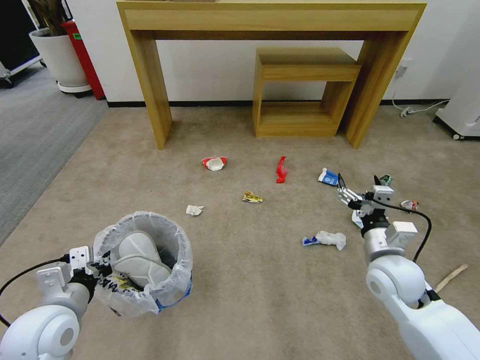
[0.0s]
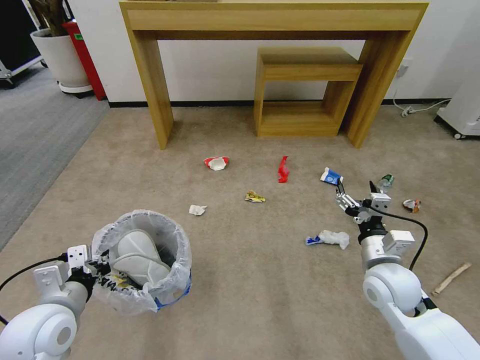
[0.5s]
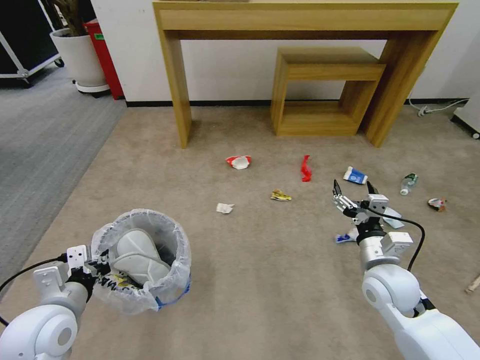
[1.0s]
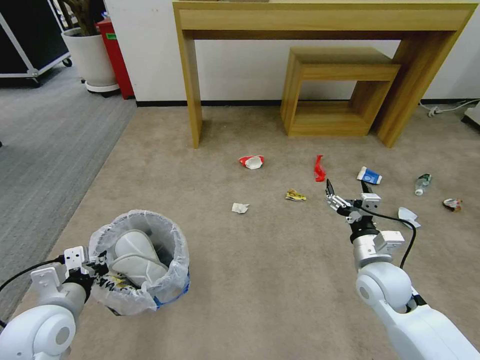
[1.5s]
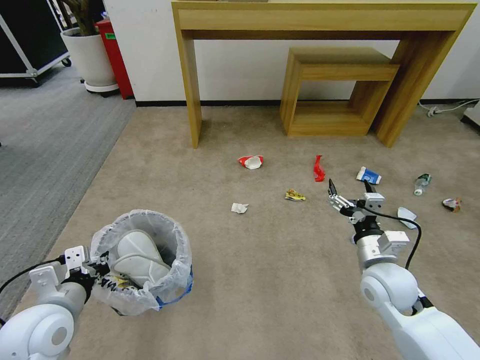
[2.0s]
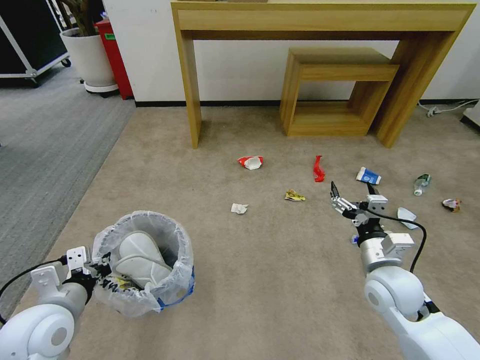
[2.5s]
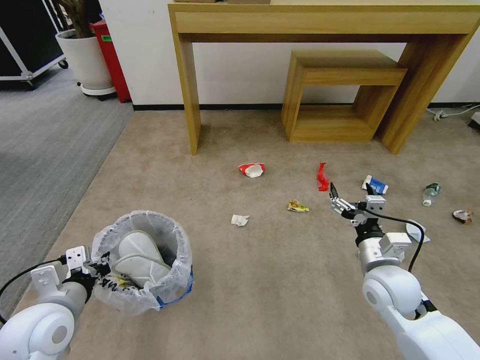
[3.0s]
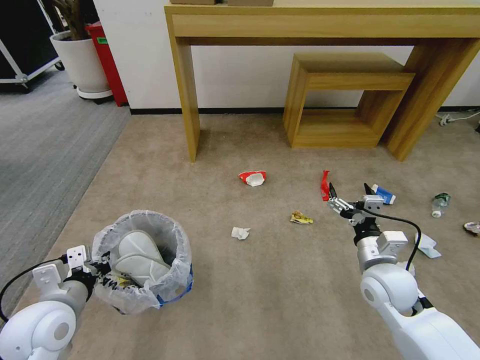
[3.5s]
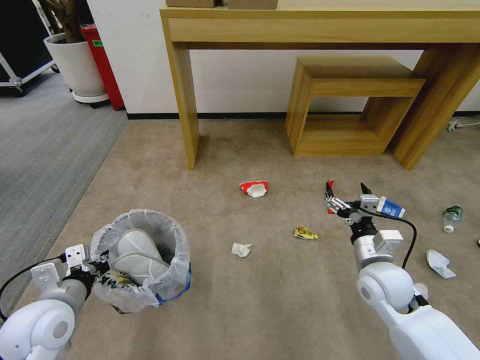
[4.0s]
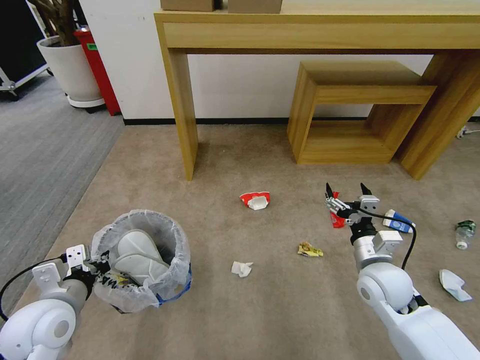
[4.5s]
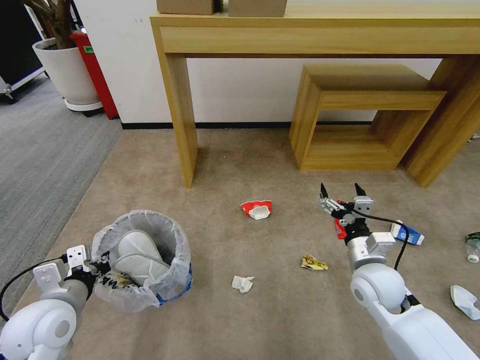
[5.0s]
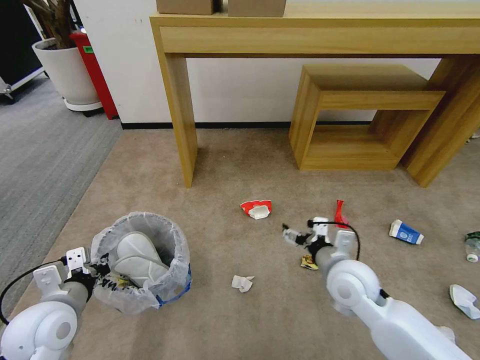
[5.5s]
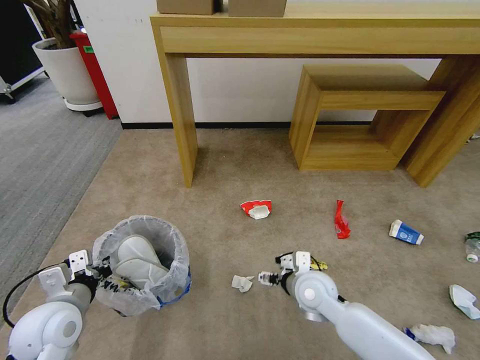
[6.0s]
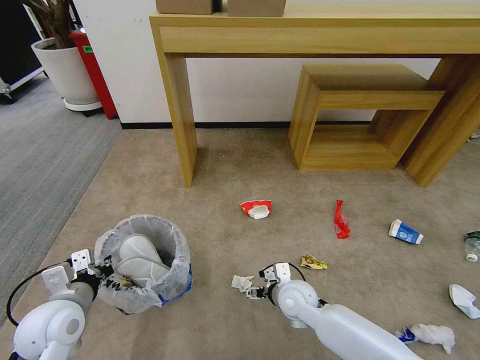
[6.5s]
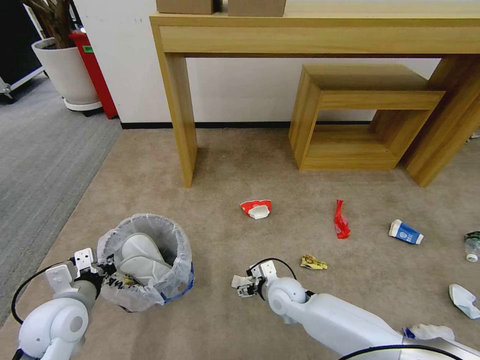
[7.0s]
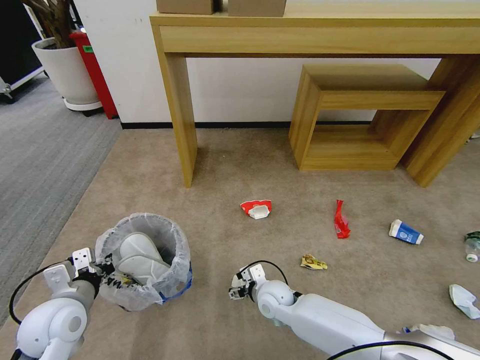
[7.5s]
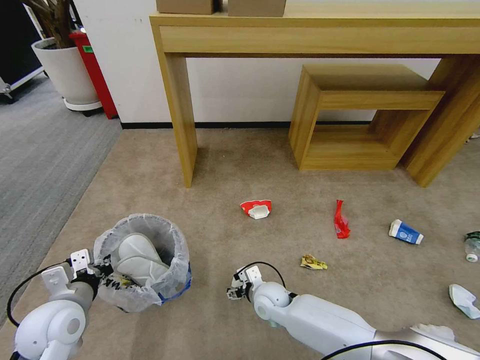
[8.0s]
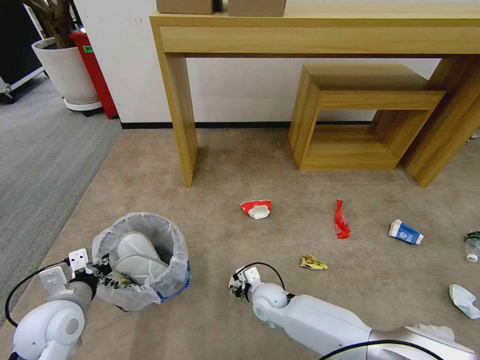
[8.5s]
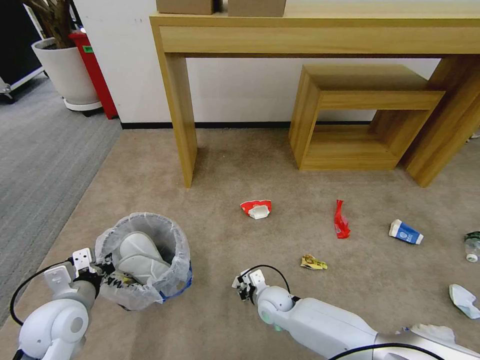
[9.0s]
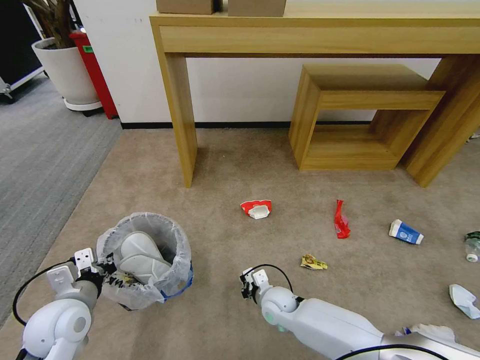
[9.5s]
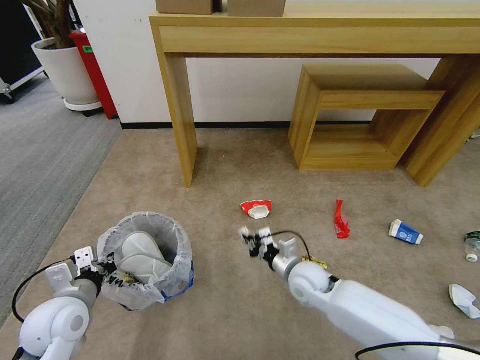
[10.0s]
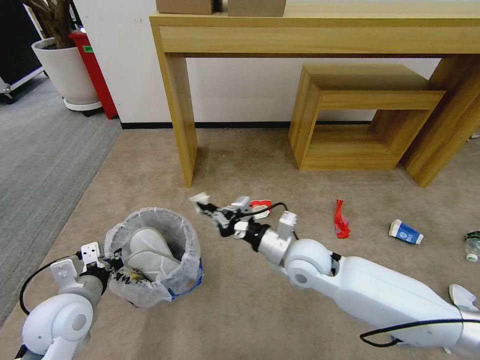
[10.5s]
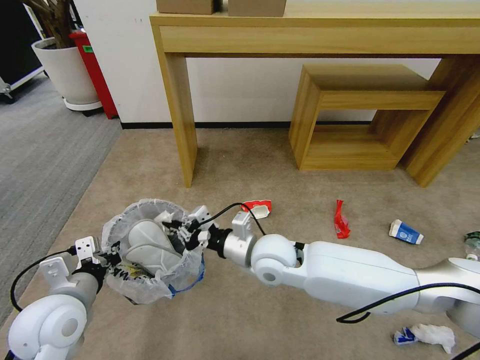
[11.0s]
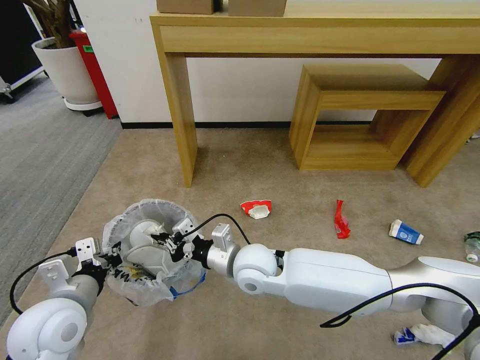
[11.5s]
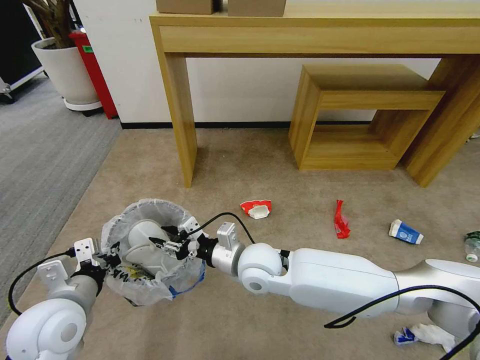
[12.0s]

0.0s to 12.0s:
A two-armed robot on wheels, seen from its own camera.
Task of the whole recording: Pick up the trash bin and place the garbage on the floor into it.
4.0s to 6.0s: The right gripper moves to the left, approximately 10 cm.
6.0s to 8.0s: The right gripper travels downward and to the left by about 20 cm.
8.0s to 10.0s: The right gripper travels upward and to the right by some 10 cm, and closes its fingers.
10.0s to 12.0s: The right gripper heads to the left and upward, covering approximately 20 cm, and opens up; the left gripper moves roughly 5 cm.

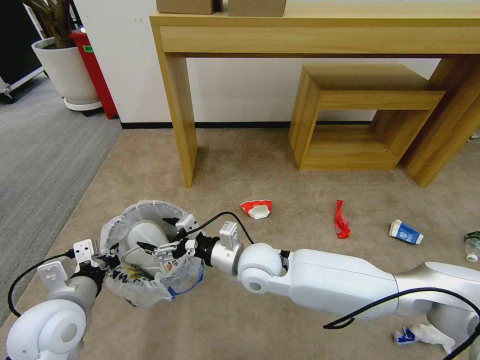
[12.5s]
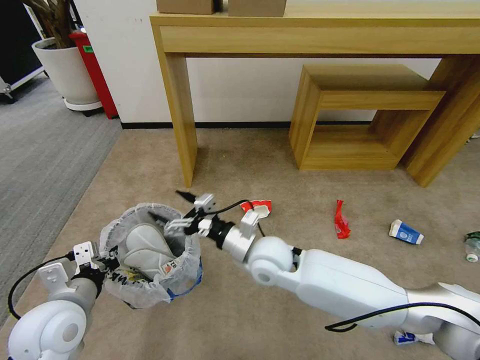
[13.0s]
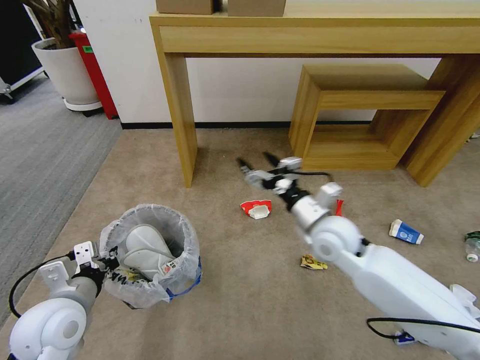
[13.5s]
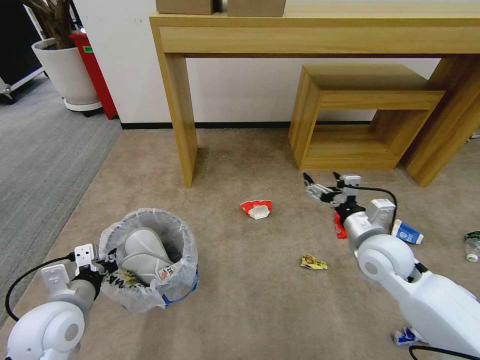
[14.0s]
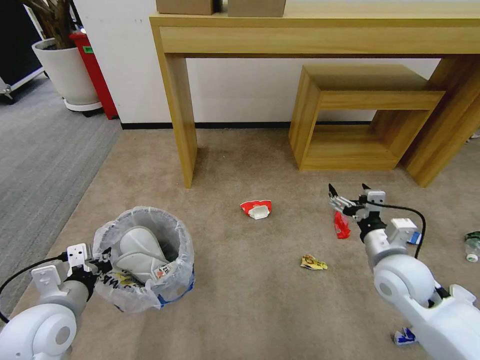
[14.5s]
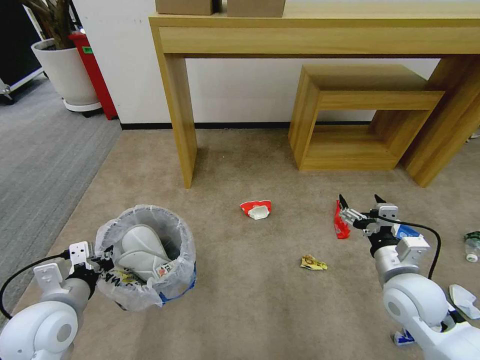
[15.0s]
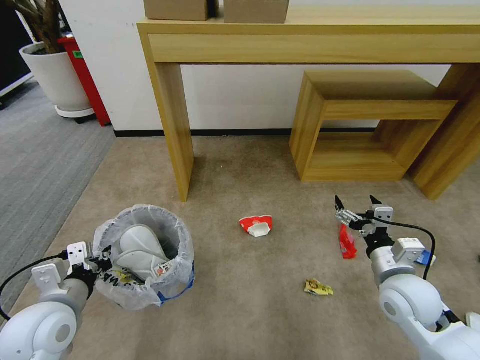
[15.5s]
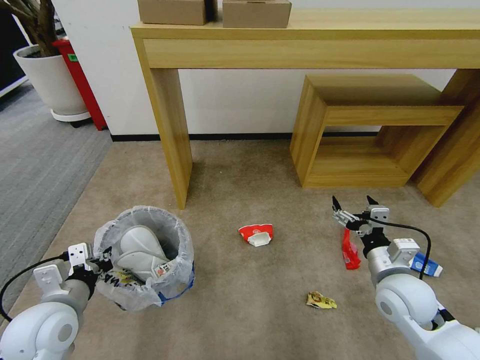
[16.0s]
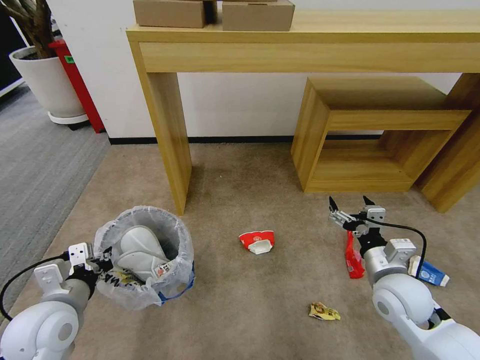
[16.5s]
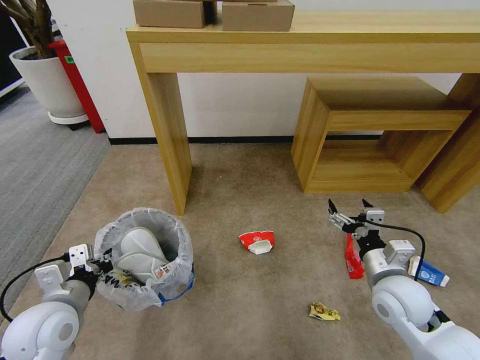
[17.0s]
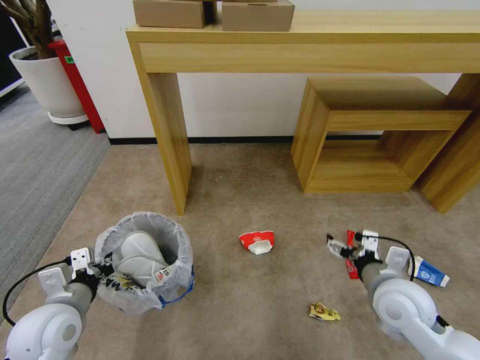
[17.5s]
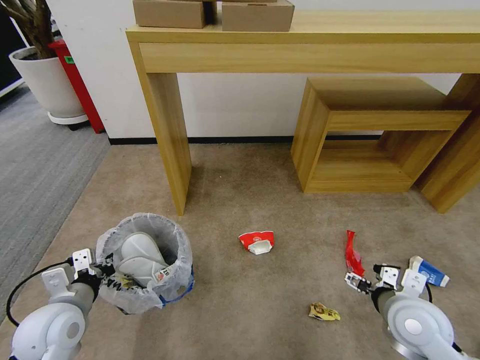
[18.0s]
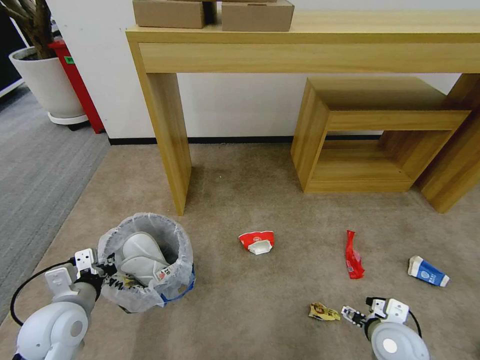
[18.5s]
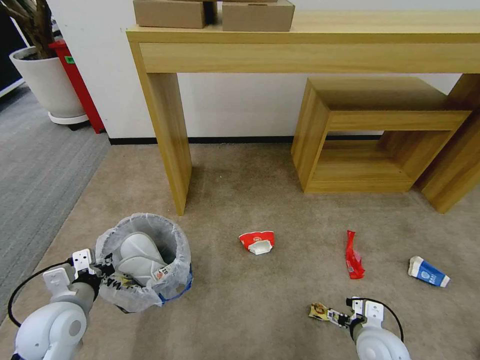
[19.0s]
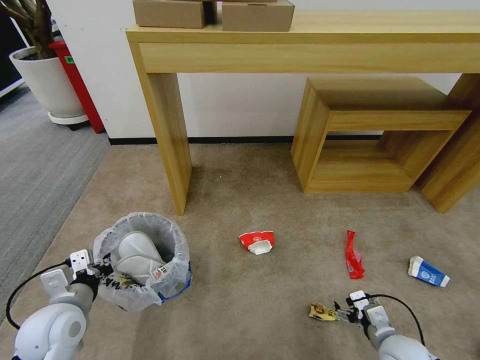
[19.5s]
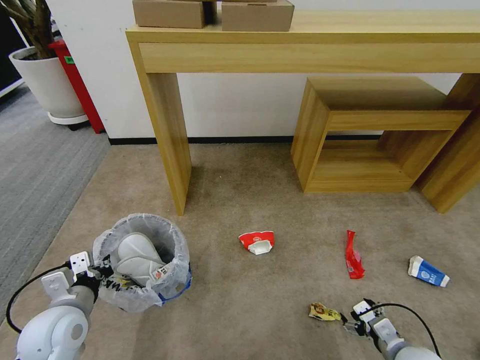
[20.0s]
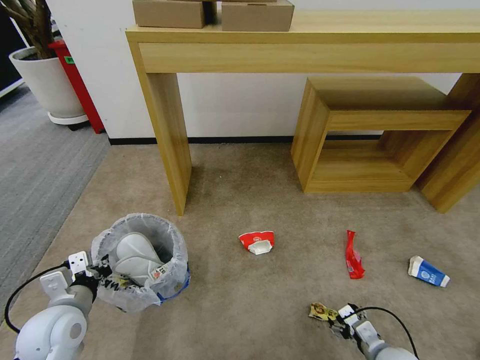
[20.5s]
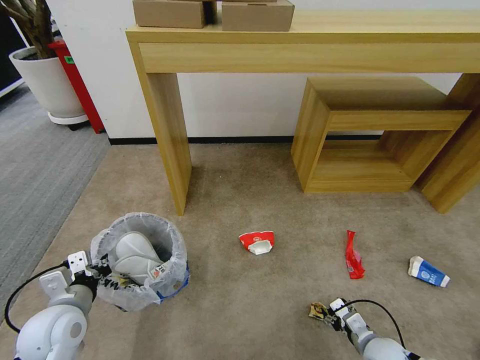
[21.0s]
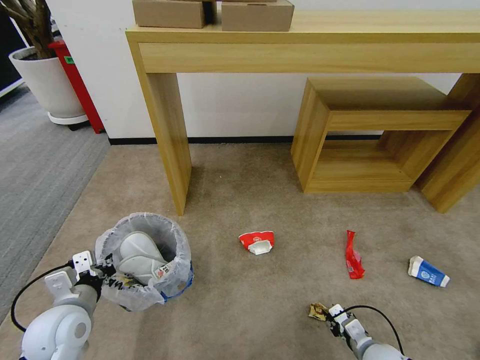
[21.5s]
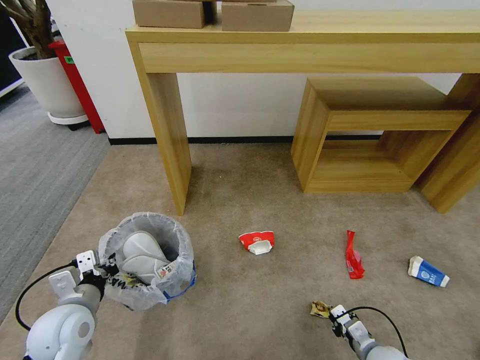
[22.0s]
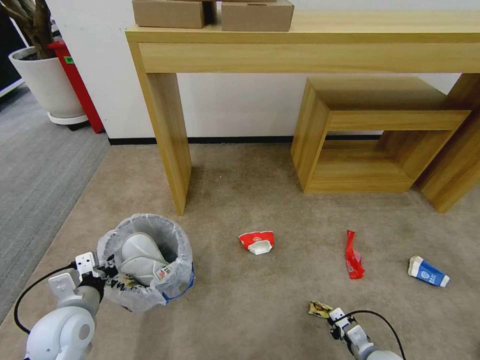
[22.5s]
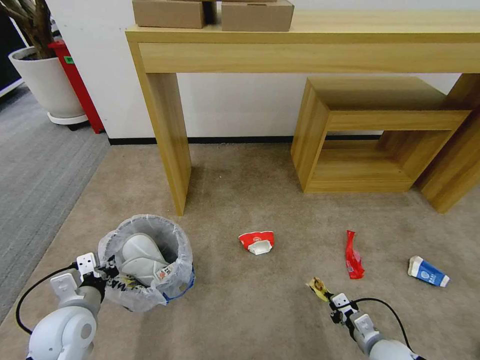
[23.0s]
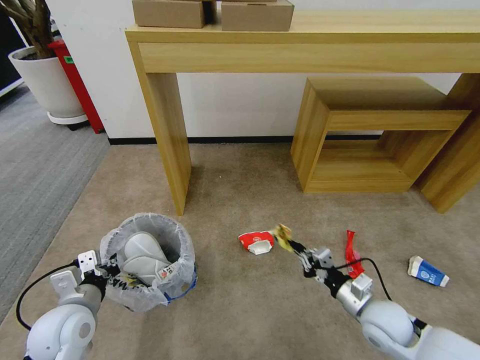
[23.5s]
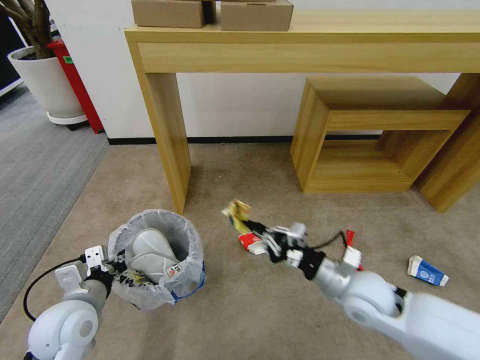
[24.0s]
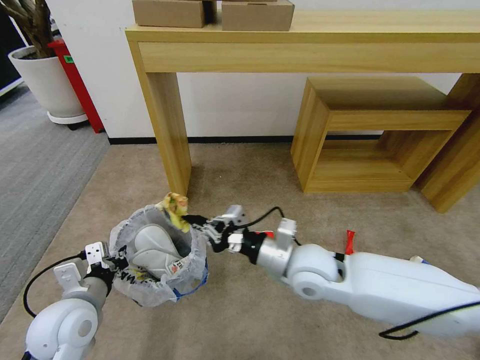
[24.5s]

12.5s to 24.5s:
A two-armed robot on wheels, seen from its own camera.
Task of the whole recording: Pick up the trash bin and place the garbage on the floor into it.
12.5s to 14.5s: The right gripper is displaced to the right by some 30 cm.
16.5s to 18.5s: The right gripper heads downward and backward, covering some 10 cm.
18.5s to 20.5s: The right gripper shifts some 10 cm downward.
20.5s to 22.5s: The right gripper closes up.
22.5s to 24.5s: The right gripper moves upward, to the left and forward, some 35 cm.

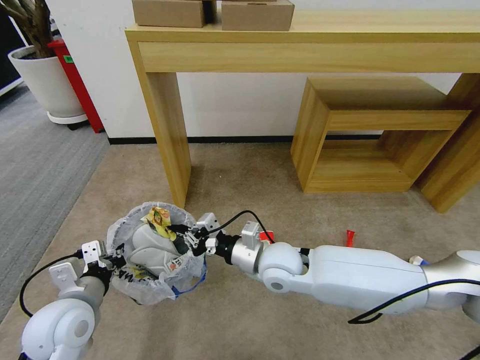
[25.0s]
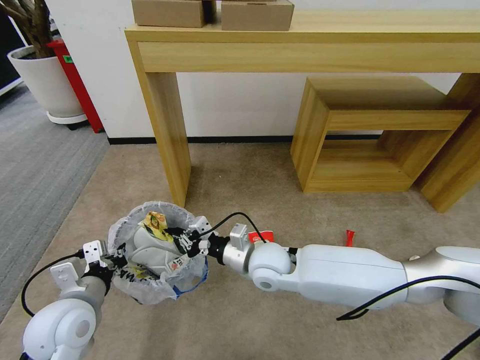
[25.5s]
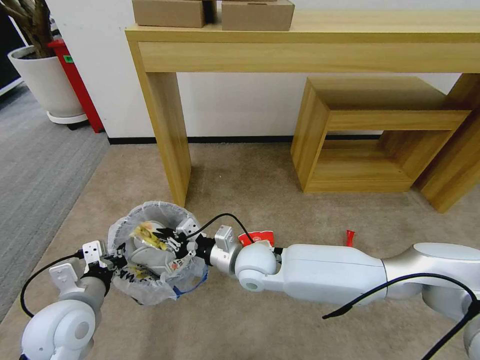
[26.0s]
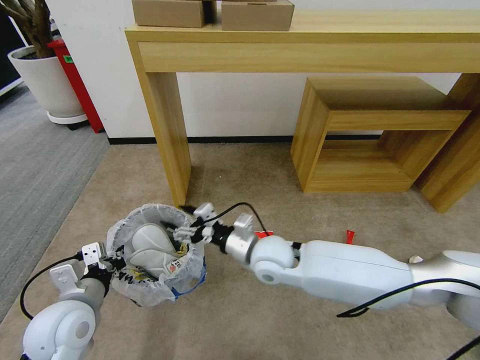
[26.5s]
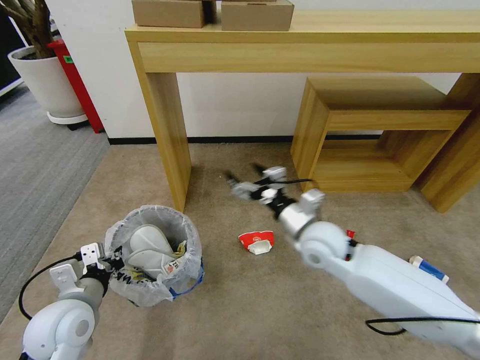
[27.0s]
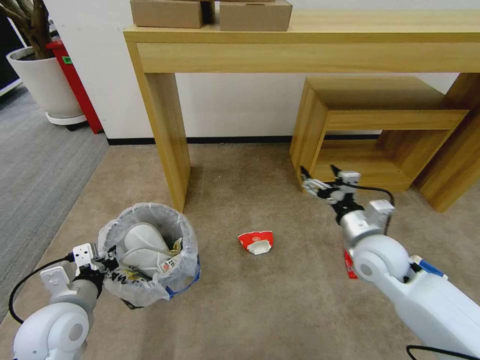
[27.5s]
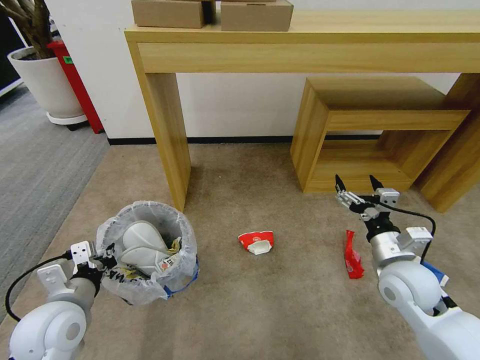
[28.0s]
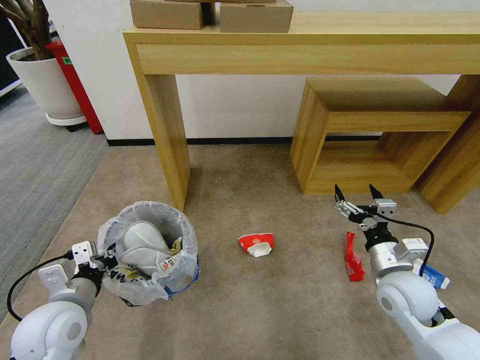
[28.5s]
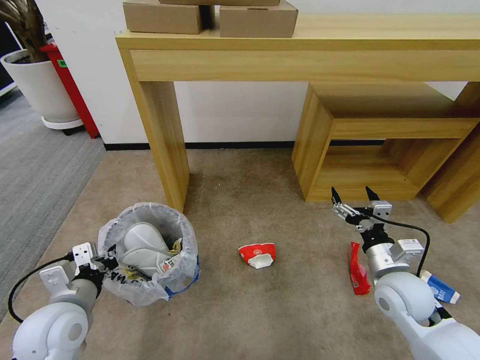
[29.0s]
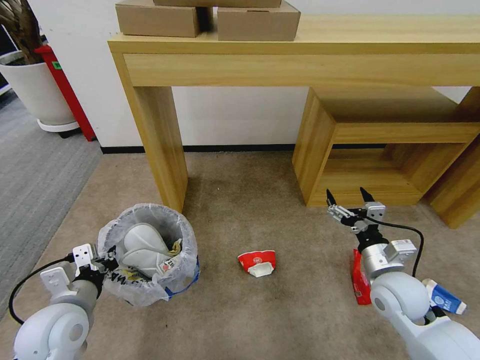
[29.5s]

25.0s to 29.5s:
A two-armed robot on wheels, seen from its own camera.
Task of the whole recording: Pick up the trash bin and place the garbage on the floor into it.
25.0s to 27.0s: The right gripper moves to the right, approximately 5 cm, and opens its fingers.
27.0s to 29.5s: The right gripper shifts some 20 cm to the right and backward.
